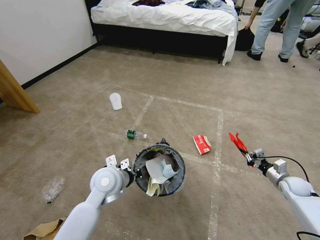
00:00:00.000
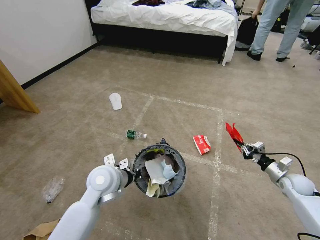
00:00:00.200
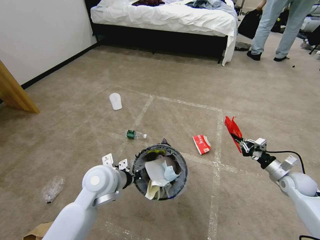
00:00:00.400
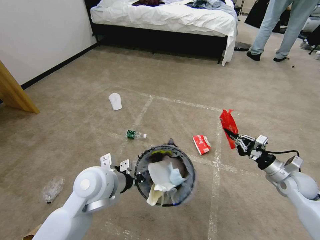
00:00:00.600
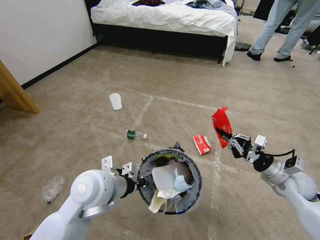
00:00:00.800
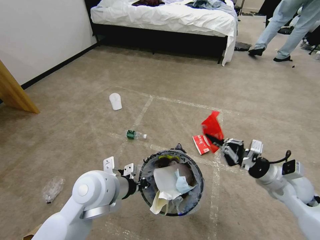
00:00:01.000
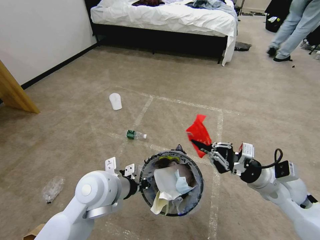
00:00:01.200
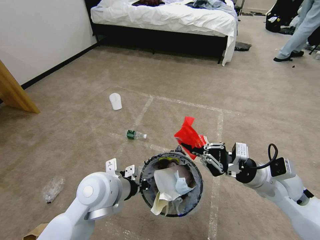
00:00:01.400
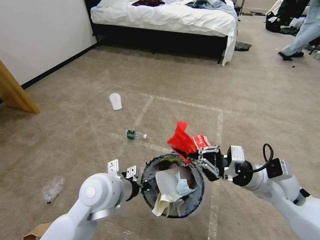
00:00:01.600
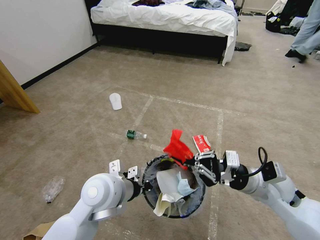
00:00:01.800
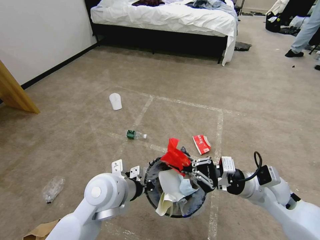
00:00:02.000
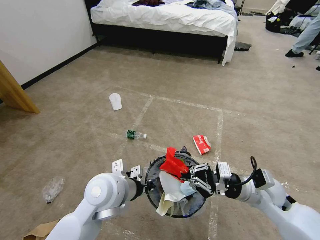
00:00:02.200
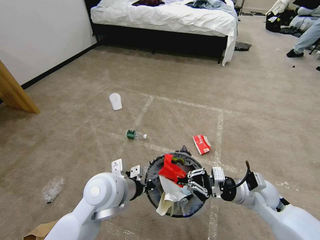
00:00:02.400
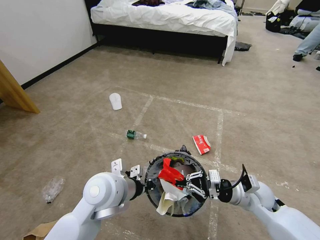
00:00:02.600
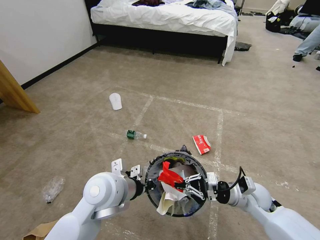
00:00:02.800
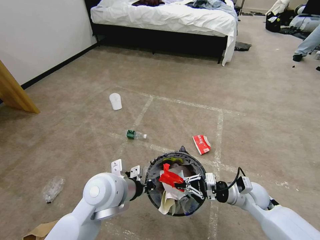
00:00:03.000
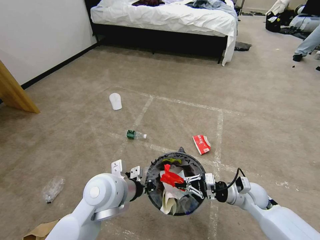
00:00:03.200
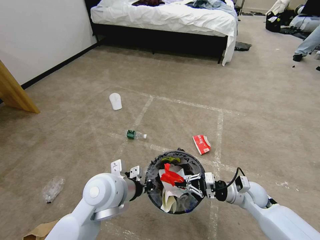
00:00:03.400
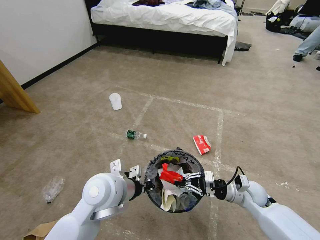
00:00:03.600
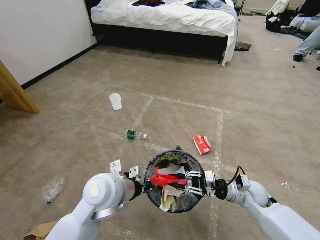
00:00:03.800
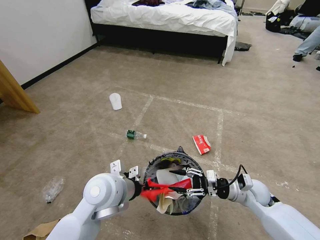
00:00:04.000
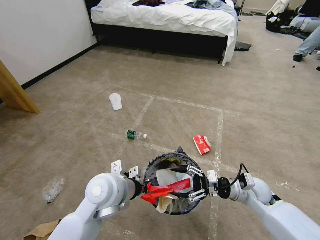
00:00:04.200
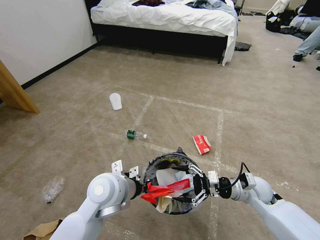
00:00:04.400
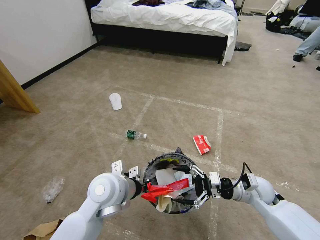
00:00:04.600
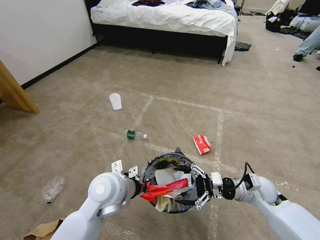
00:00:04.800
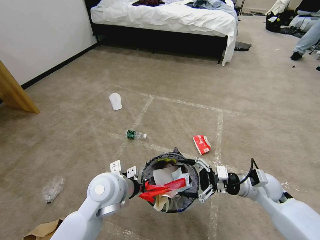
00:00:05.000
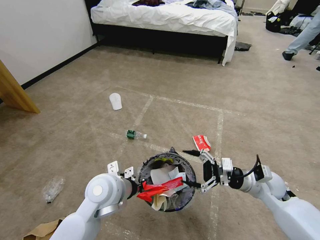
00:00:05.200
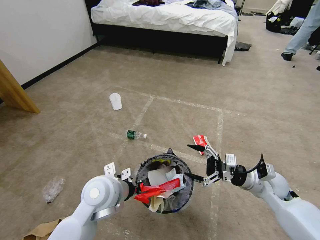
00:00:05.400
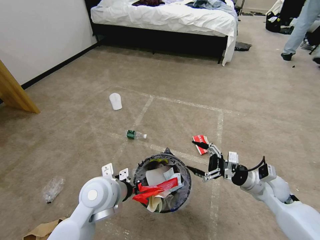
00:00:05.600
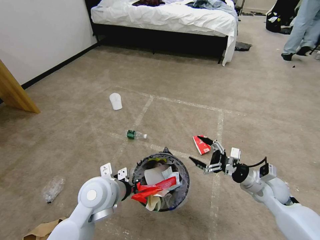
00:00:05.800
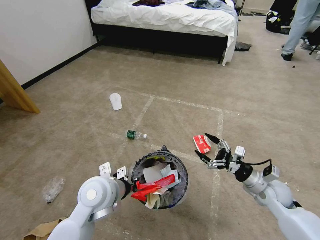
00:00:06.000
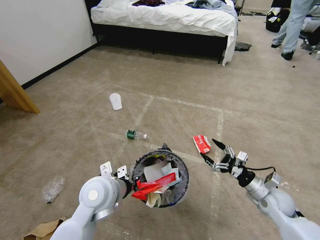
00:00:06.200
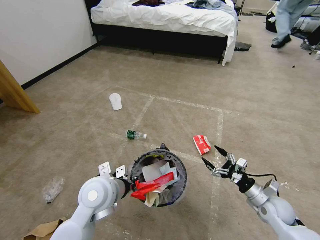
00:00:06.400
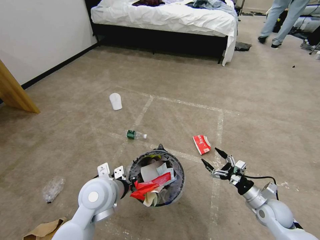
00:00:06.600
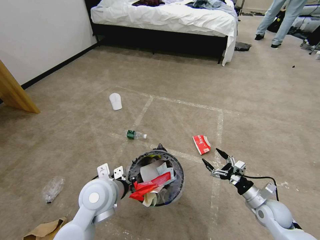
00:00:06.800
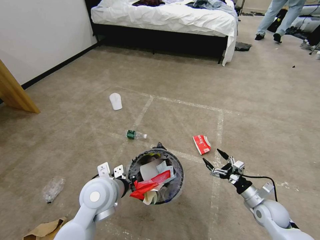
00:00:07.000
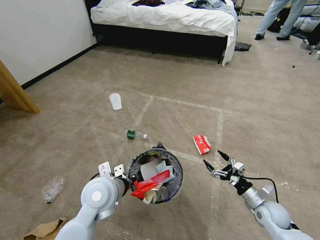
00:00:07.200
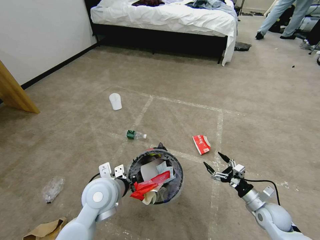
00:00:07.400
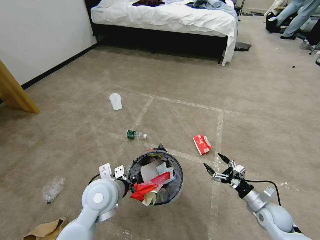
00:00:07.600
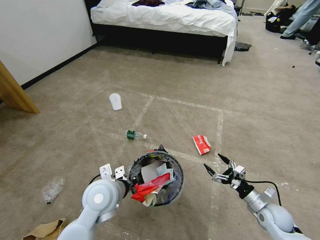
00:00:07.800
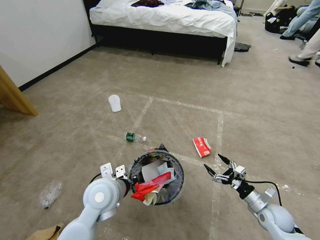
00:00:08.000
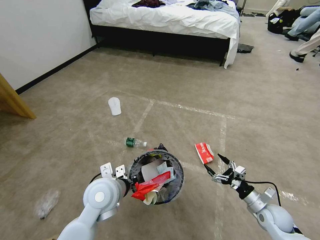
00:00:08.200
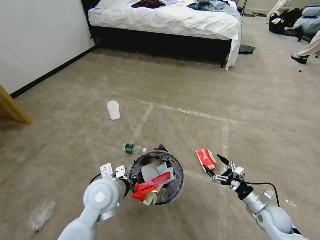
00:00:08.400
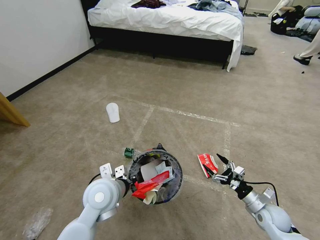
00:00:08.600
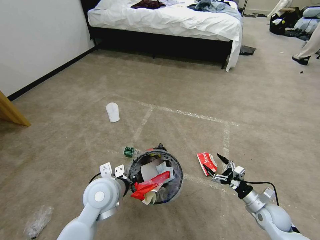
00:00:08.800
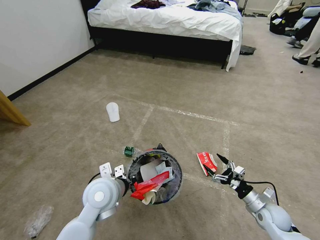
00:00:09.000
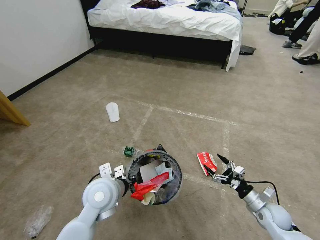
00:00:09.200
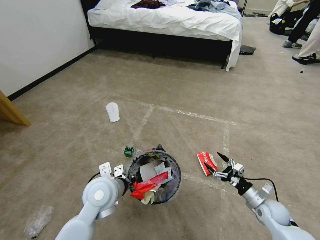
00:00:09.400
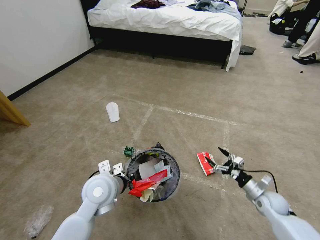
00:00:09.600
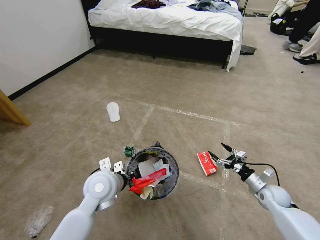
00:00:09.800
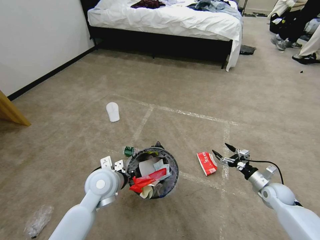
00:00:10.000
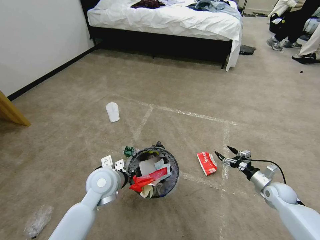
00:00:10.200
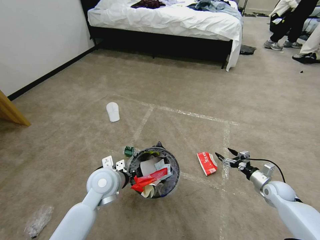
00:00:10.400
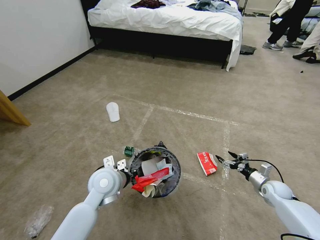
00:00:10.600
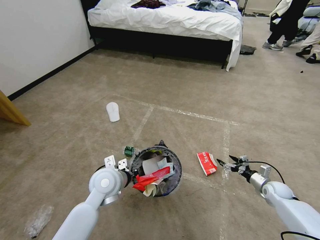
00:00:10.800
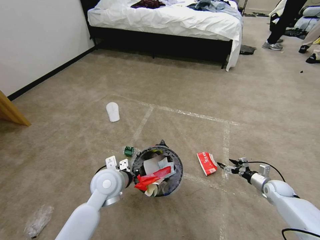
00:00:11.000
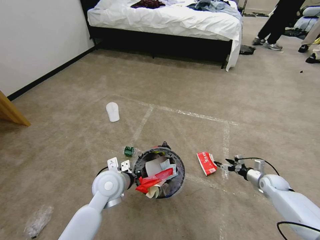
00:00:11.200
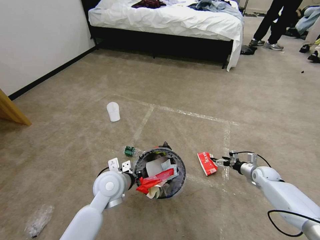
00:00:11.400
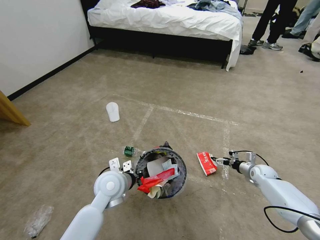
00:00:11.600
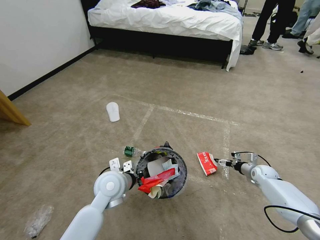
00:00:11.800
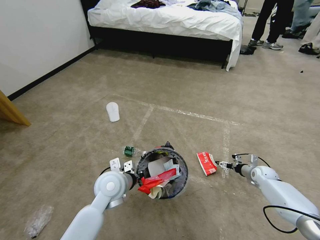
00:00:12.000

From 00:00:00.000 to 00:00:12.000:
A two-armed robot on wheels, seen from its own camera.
Task of the whole recording: Pick up the trash bin and place the garbage on the floor into it.
From 00:00:00.000 to 00:00:01.600: The left gripper goes approximately 10 cm upward and backward. Meanwhile the right gripper heads to the left and upward, covering about 30 cm.
From 00:00:01.600 to 00:00:03.000: The right gripper travels downward by some 15 cm.
From 00:00:03.000 to 00:00:04.400: The right gripper opens.
From 00:00:04.400 to 00:00:06.000: The right gripper moves to the right, roughly 5 cm.
From 00:00:06.000 to 00:00:07.600: The right gripper goes roughly 10 cm downward.
From 00:00:07.600 to 00:00:09.000: Neither gripper changes place.
From 00:00:09.000 to 00:00:10.400: The right gripper travels forward and to the right by some 10 cm.
From 00:00:10.400 to 00:00:12.000: The right gripper moves forward, about 10 cm.

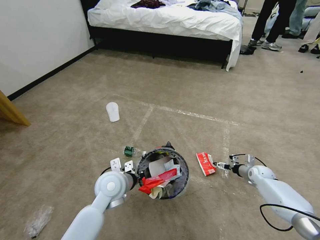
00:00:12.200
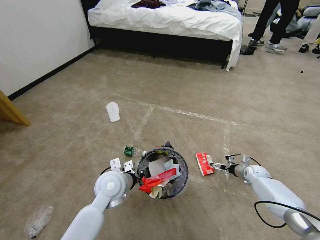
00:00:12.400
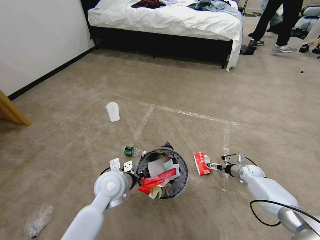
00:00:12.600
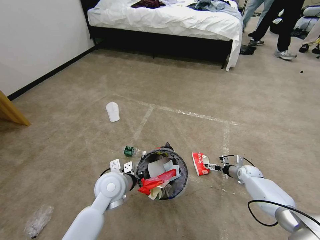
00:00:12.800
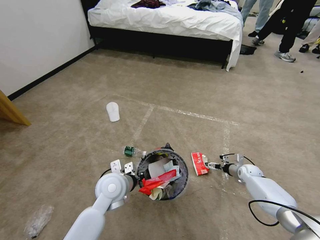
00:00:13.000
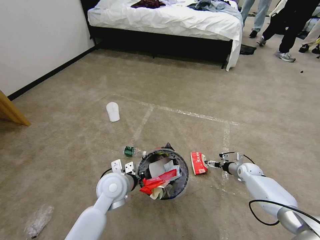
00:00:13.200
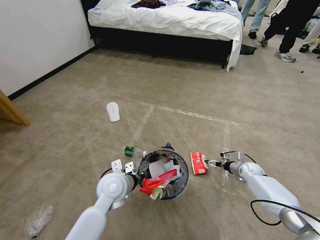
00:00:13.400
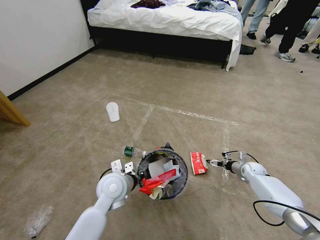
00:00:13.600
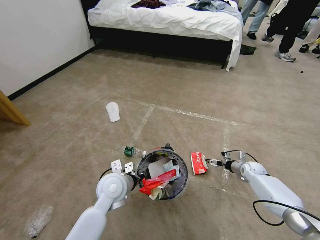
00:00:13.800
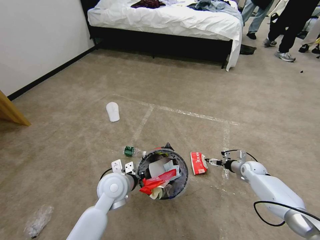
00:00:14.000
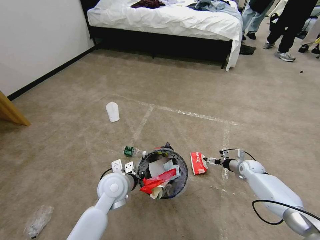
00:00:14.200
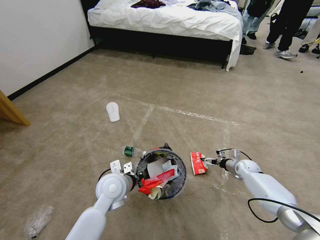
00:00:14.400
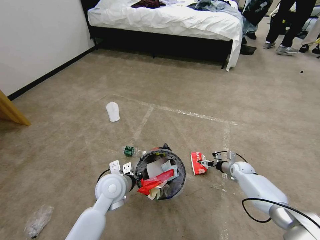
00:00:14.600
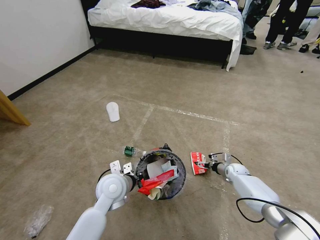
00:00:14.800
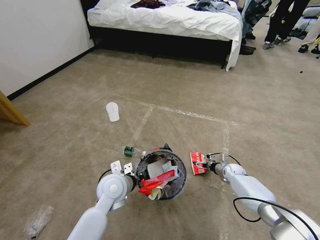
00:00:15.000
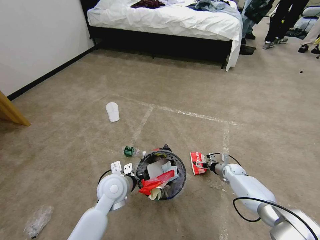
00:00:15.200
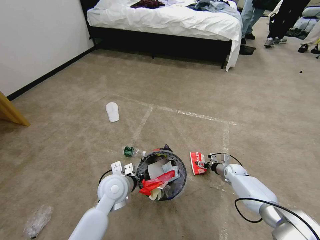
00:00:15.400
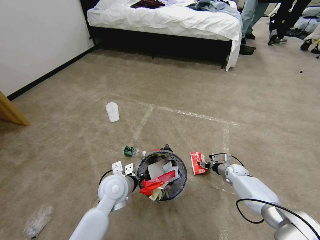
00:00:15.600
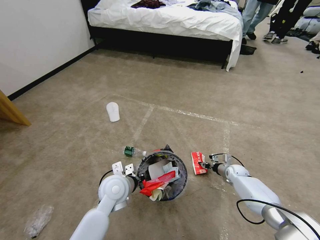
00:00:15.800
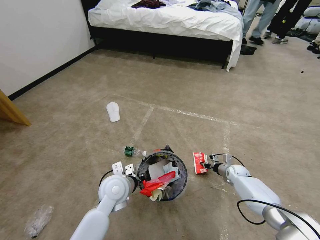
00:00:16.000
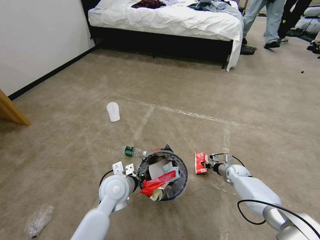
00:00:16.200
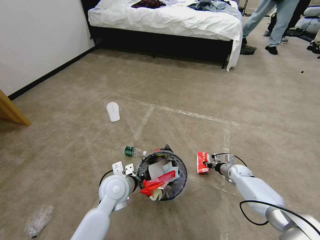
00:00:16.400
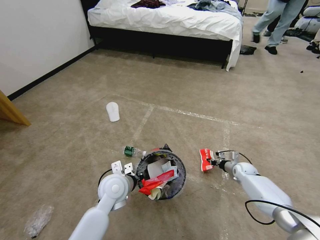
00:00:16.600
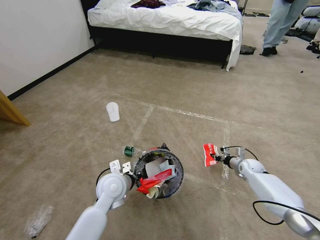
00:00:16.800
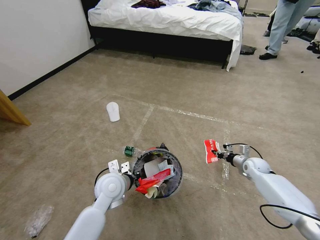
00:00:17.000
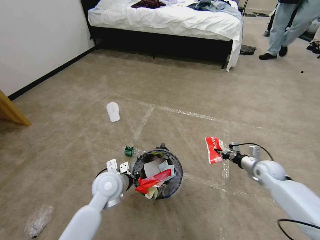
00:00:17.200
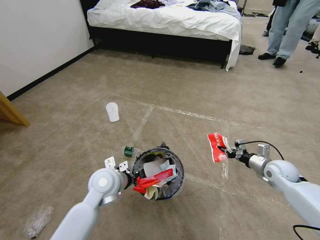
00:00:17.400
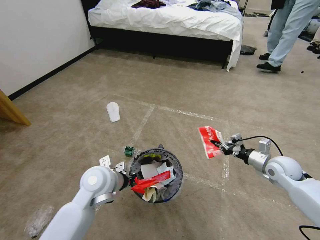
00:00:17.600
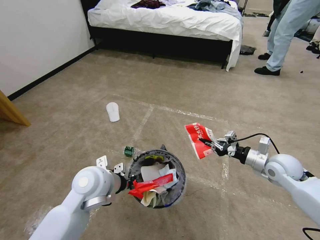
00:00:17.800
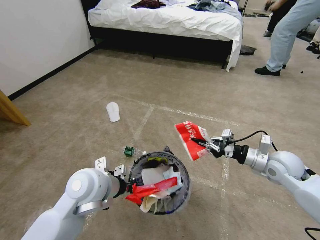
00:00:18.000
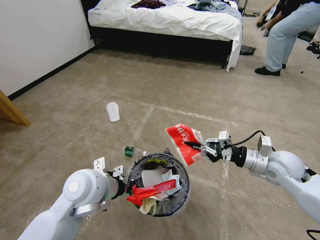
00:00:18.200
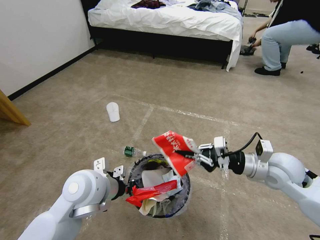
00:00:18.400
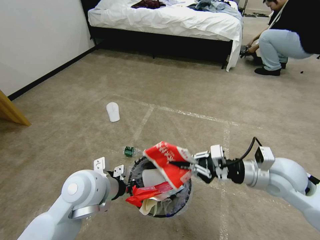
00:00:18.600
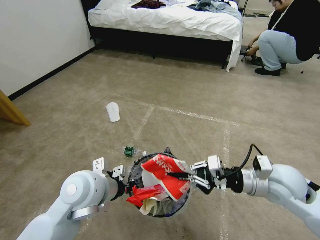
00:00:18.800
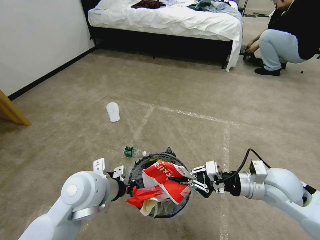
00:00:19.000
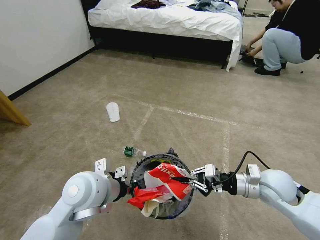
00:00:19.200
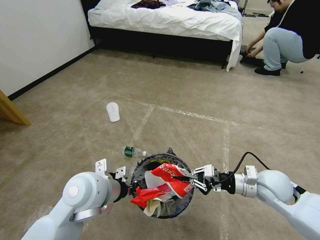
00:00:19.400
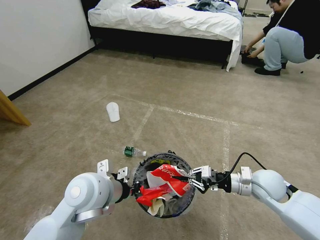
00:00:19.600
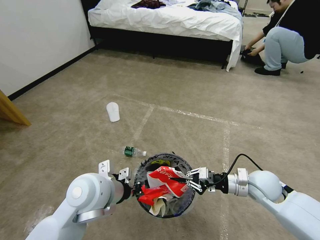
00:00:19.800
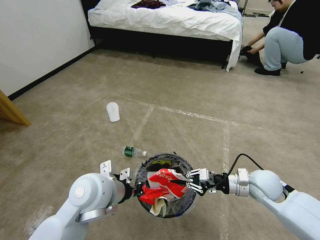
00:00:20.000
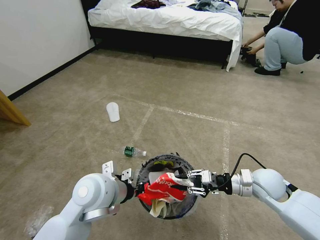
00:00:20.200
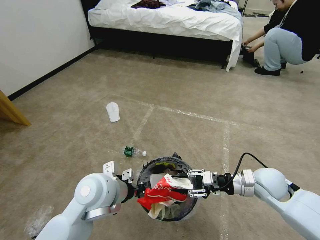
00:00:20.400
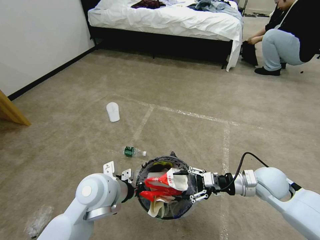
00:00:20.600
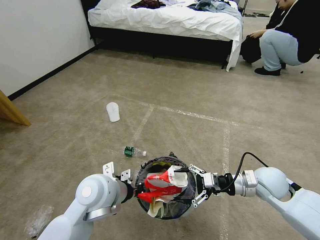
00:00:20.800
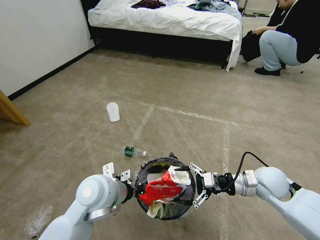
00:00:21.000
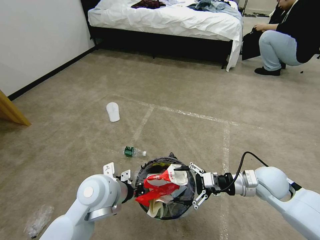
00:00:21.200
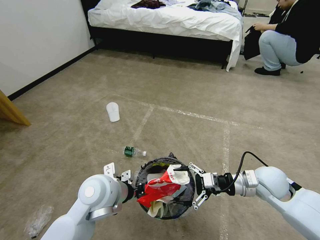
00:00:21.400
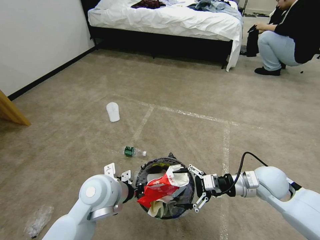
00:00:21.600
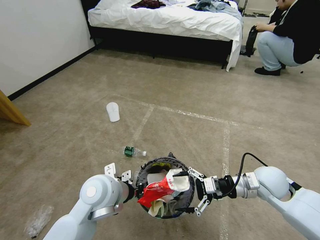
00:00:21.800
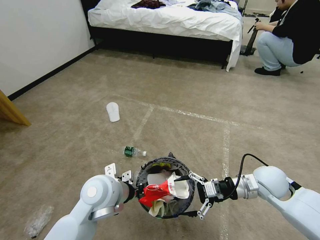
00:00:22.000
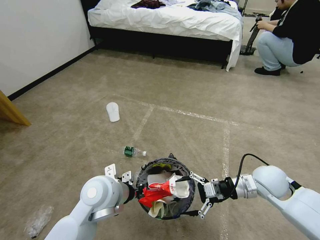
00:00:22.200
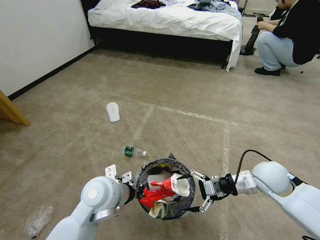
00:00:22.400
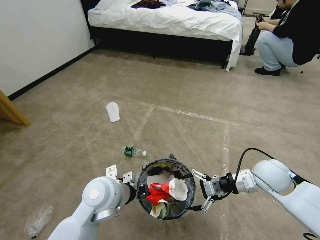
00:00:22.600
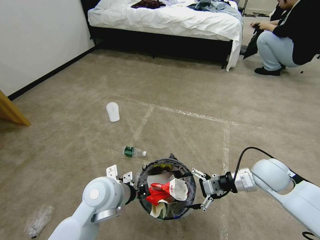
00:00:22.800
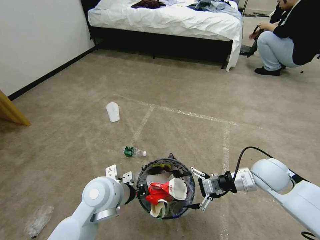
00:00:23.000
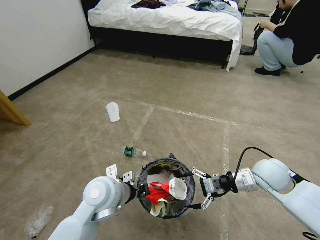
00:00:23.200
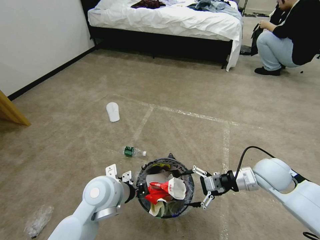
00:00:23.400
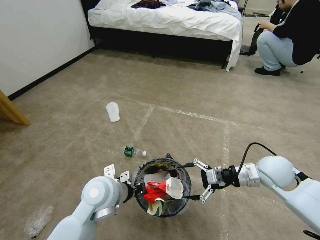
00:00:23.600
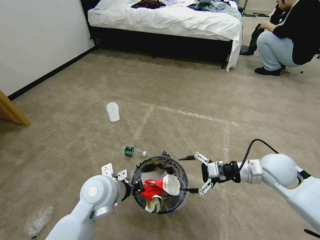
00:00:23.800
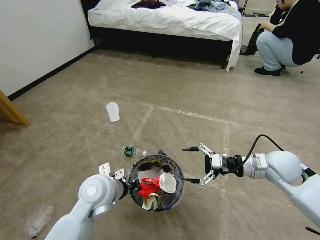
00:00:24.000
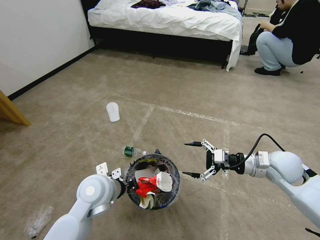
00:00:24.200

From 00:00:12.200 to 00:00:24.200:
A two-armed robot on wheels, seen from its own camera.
Task of the whole recording: Pick up the trash bin and place the garbage on the floor into it.
From 00:00:12.200 to 00:00:13.800: The grippers move only a little.
From 00:00:13.800 to 00:00:15.200: The right gripper moves to the left, some 5 cm.
From 00:00:15.200 to 00:00:16.600: The right gripper shifts by roughly 5 cm, and closes up.
From 00:00:16.600 to 00:00:18.200: The right gripper goes some 30 cm upward and backward. The left gripper moves upward, roughly 10 cm.
From 00:00:18.200 to 00:00:19.800: The right gripper travels downward by approximately 5 cm.
From 00:00:19.800 to 00:00:21.200: The right gripper opens.
From 00:00:21.200 to 00:00:22.600: The grippers stay close to where they were, moving slightly.
